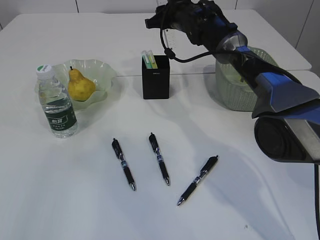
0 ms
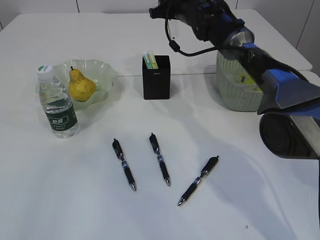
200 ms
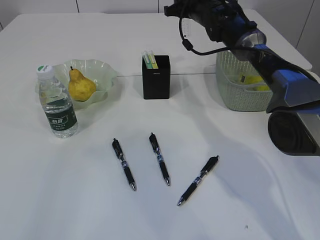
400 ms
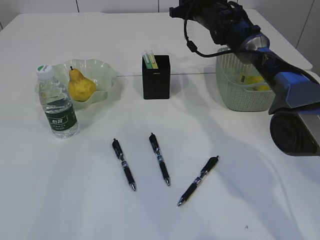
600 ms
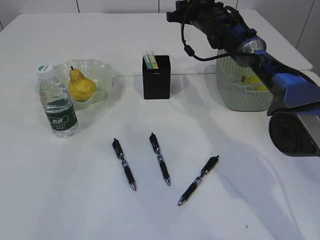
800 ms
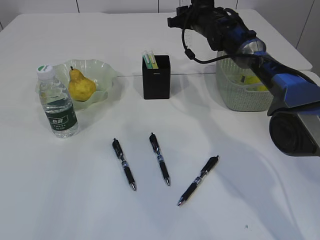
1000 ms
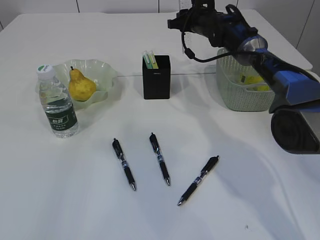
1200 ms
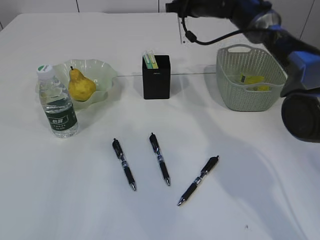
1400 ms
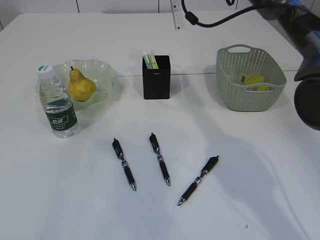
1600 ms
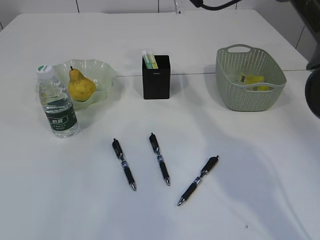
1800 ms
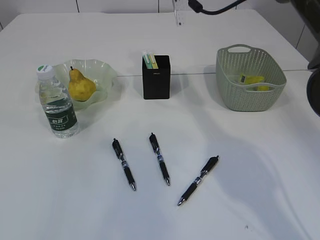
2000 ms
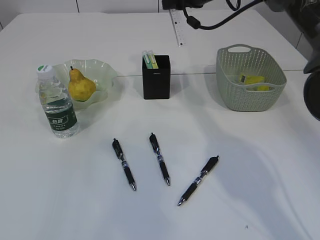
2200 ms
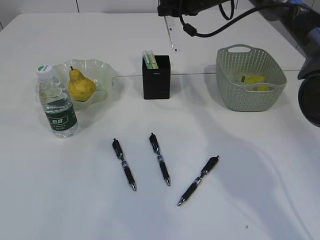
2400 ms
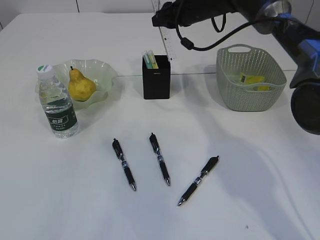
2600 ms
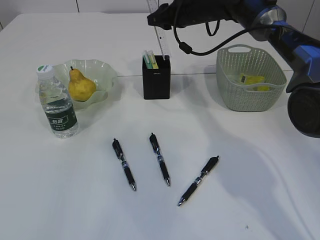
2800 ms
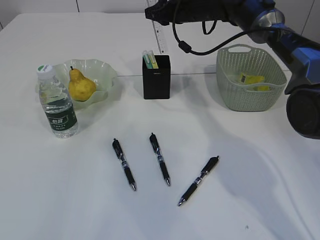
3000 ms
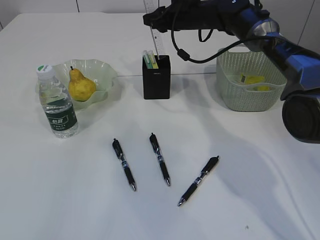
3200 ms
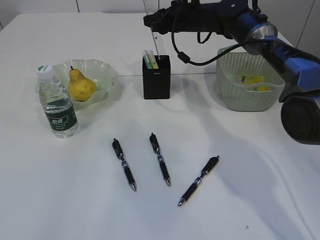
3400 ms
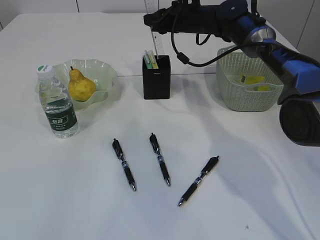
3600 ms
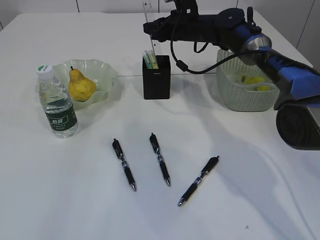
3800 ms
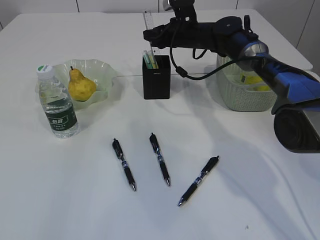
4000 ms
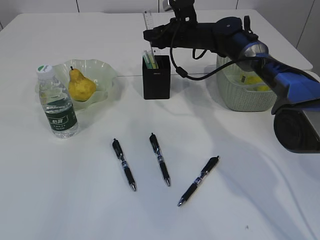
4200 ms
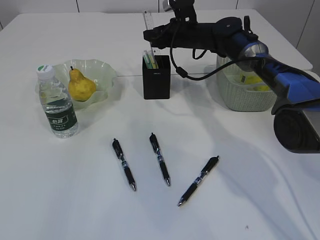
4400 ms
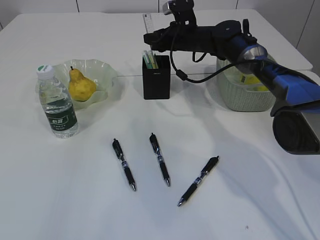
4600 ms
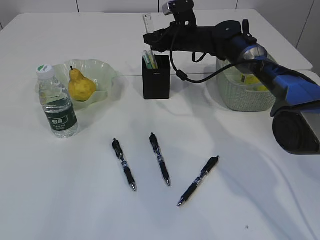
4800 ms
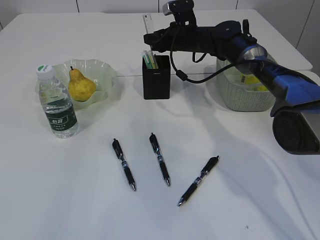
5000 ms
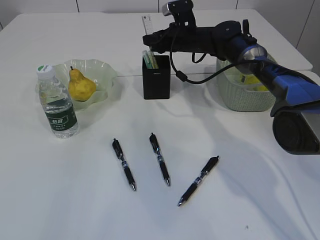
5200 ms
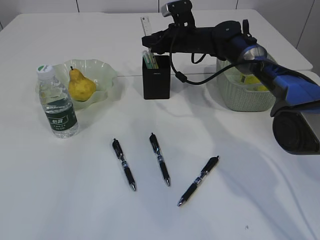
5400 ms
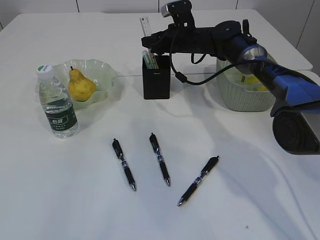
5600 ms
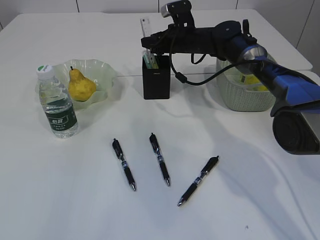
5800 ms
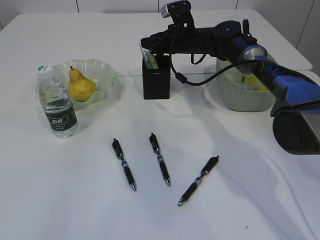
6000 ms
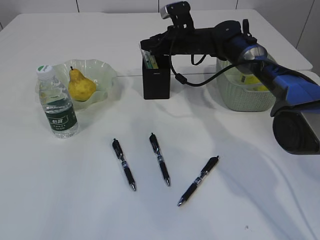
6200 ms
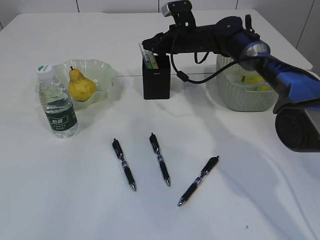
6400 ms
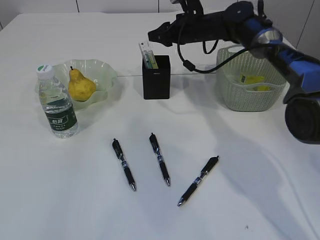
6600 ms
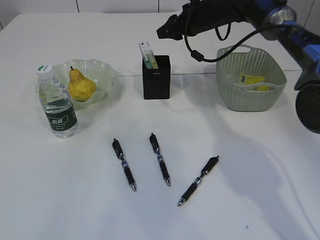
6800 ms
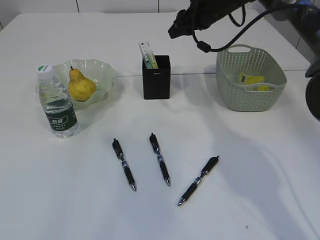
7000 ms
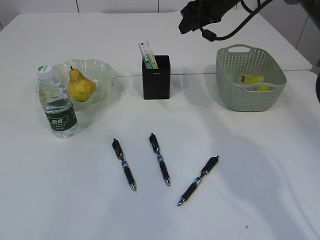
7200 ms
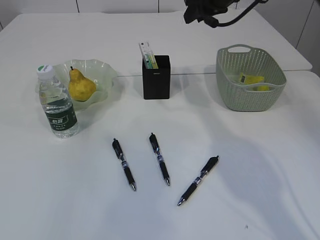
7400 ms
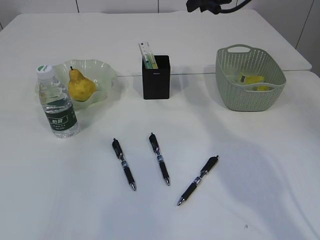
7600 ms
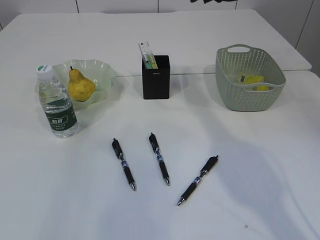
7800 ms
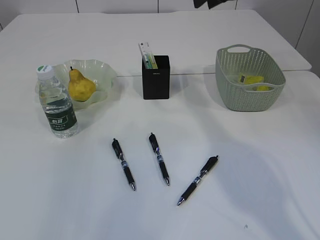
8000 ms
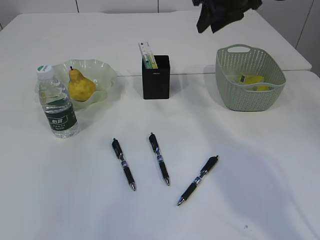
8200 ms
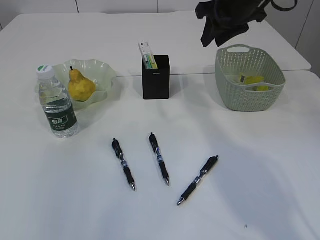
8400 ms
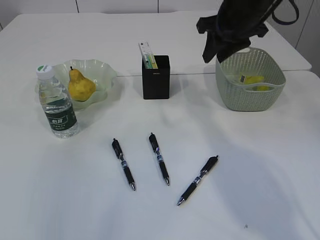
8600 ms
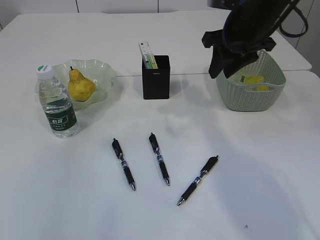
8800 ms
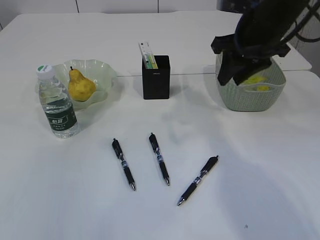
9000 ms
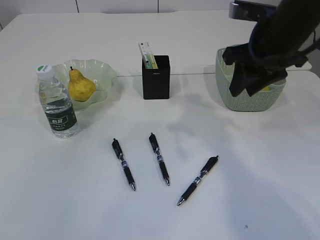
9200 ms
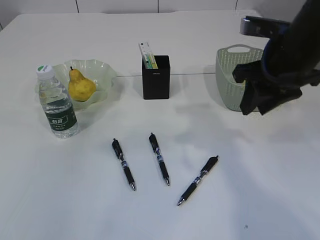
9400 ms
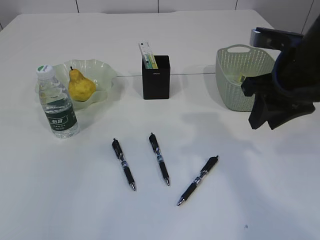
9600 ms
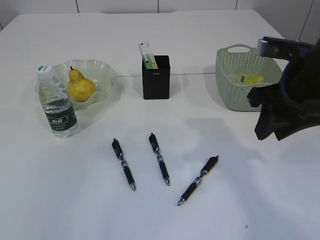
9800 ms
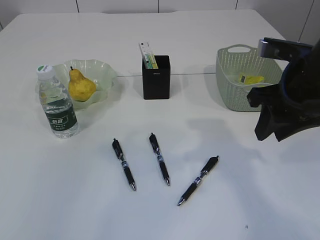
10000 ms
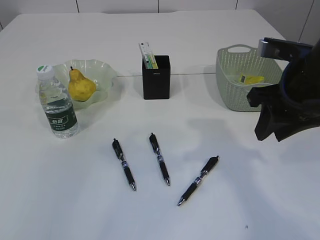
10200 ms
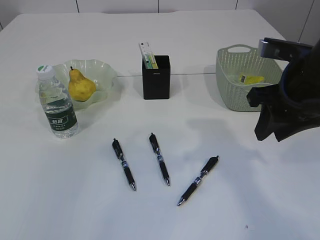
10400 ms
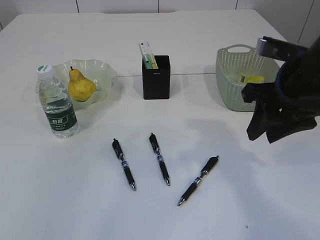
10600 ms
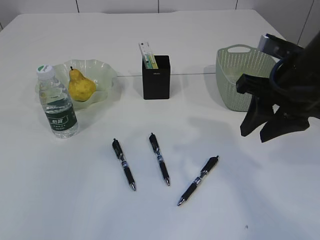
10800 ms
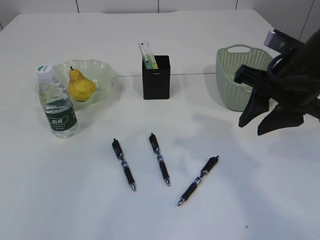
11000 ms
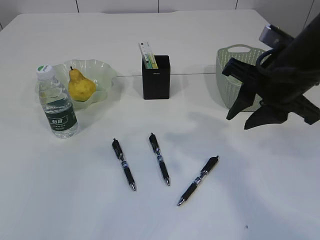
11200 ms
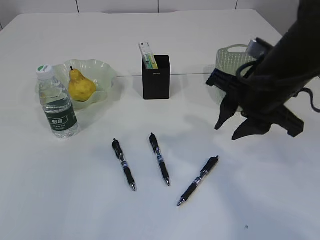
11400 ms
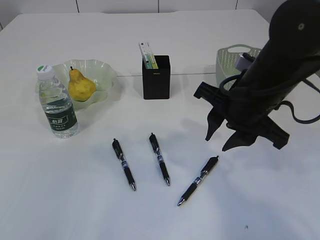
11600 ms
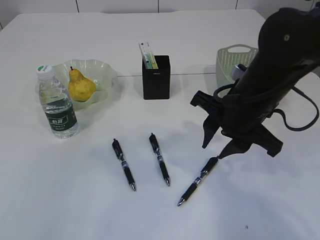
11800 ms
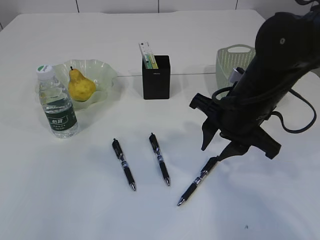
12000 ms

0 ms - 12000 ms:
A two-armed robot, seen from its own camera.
Step, 0 ms - 7000 ms: Place the ruler into the pen holder.
0 ms - 1600 ms: The right gripper travels upward by roughly 10 cm.
1600 ms - 3000 ms: The right gripper moves downward, roughly 5 cm.
3000 ms - 4400 ms: The right gripper heads downward, covering roughly 5 cm.
4400 ms - 6000 ms: Neither gripper changes place.
6000 ms - 7600 ms: The right gripper heads upward and backward, covering roughly 15 cm.
7600 ms - 9000 ms: The right gripper is displaced backward by some 10 cm.
9000 ms - 10400 ms: The right gripper heads backward, covering approximately 10 cm.
10400 ms - 12000 ms: The right gripper is displaced to the left and downward by approximately 10 cm.

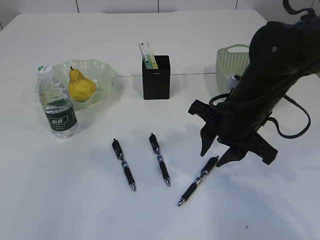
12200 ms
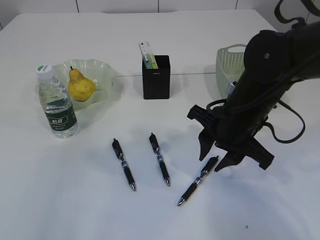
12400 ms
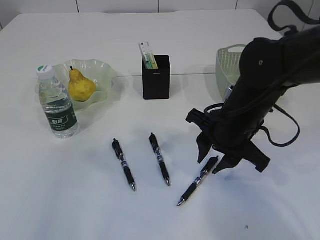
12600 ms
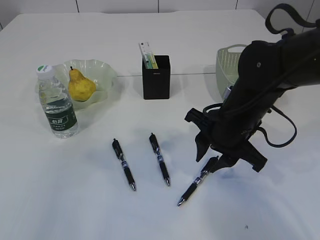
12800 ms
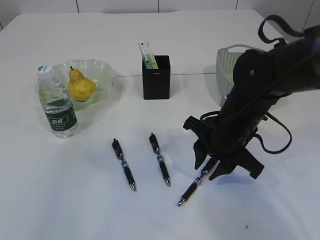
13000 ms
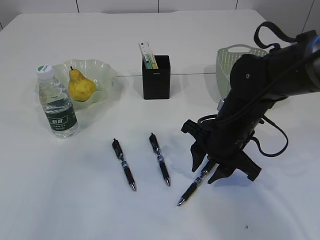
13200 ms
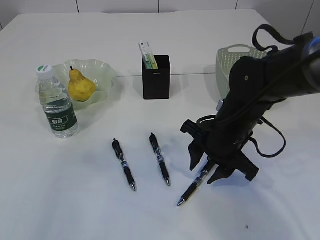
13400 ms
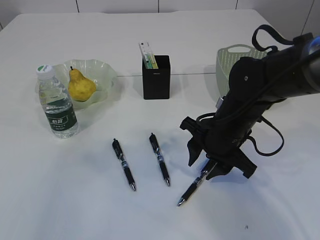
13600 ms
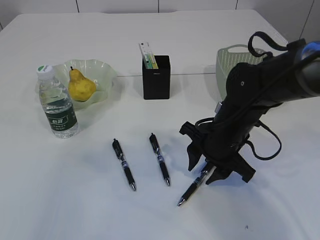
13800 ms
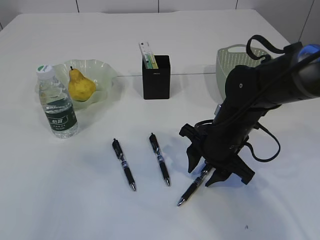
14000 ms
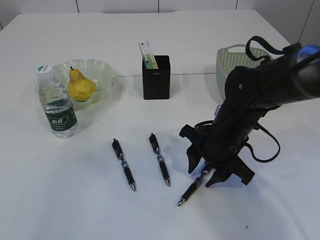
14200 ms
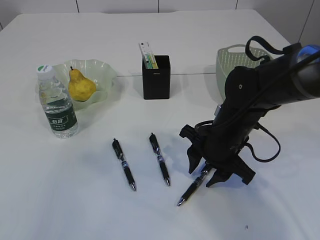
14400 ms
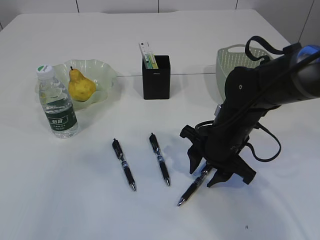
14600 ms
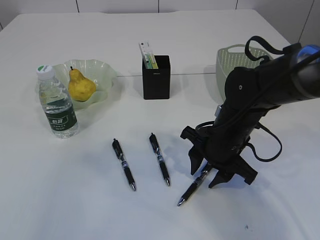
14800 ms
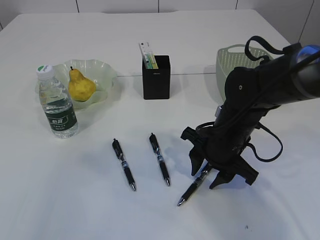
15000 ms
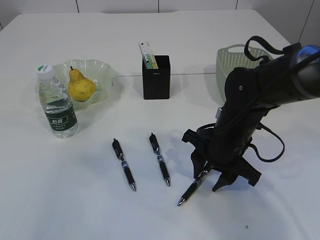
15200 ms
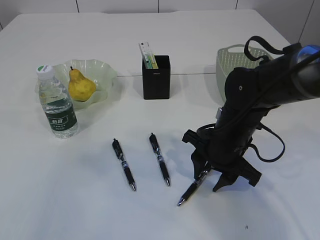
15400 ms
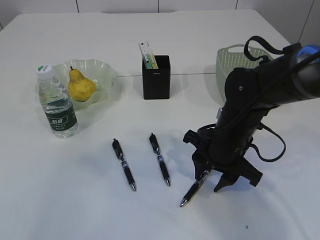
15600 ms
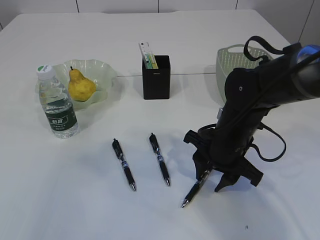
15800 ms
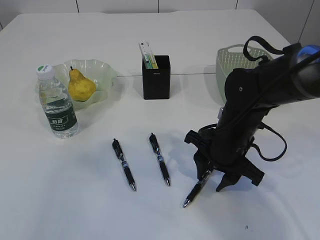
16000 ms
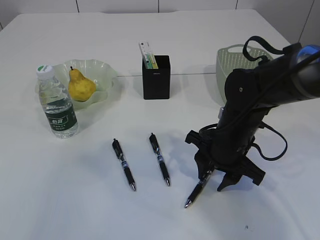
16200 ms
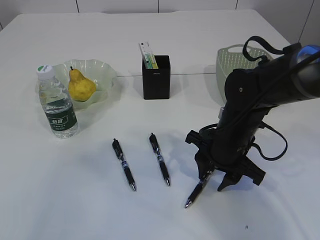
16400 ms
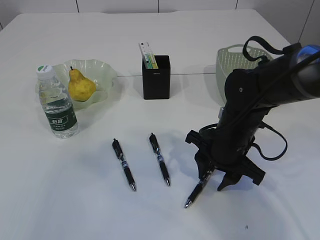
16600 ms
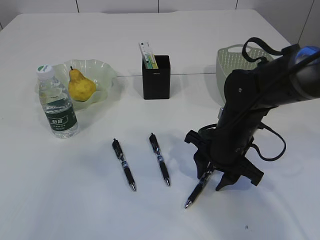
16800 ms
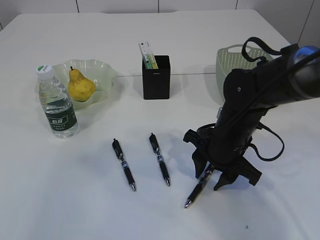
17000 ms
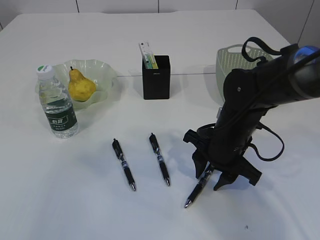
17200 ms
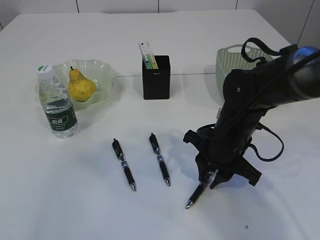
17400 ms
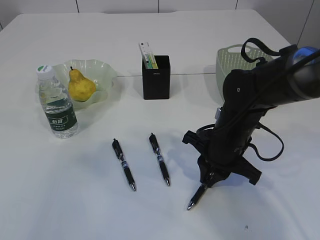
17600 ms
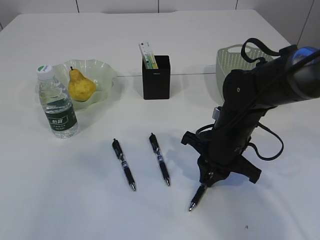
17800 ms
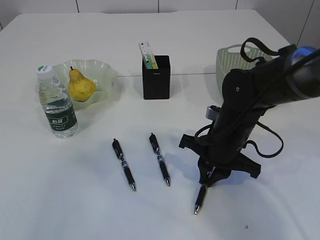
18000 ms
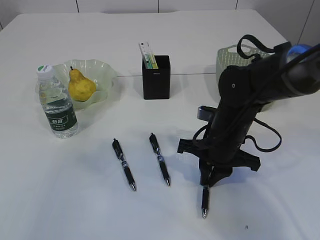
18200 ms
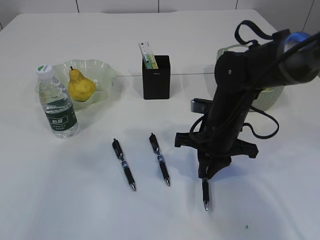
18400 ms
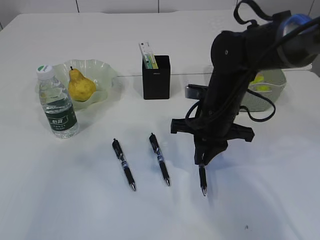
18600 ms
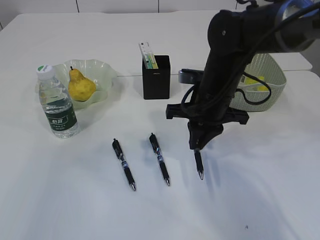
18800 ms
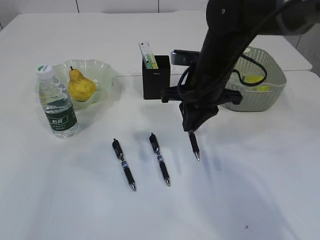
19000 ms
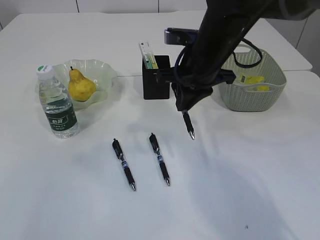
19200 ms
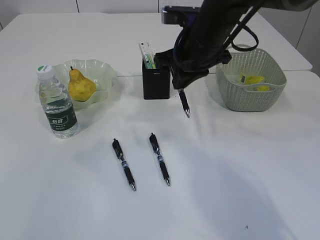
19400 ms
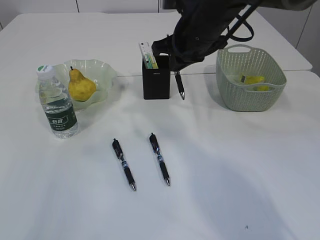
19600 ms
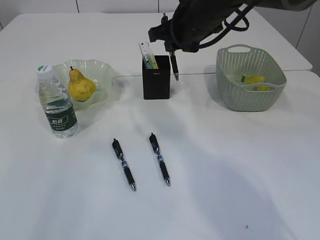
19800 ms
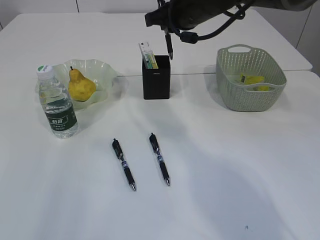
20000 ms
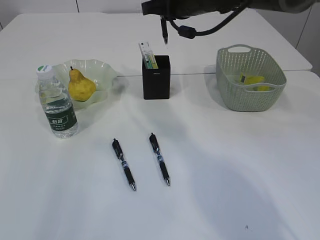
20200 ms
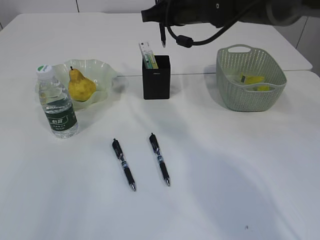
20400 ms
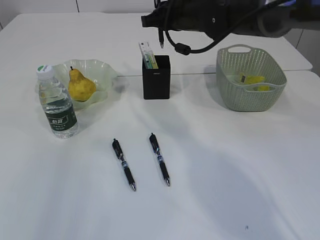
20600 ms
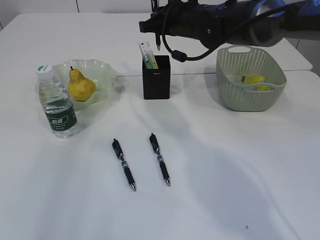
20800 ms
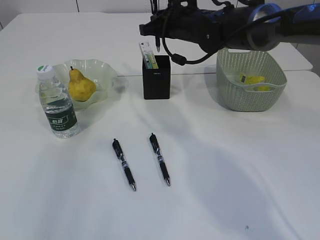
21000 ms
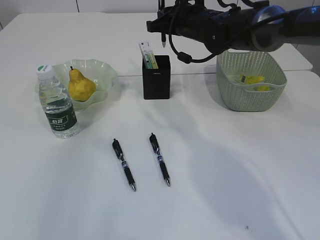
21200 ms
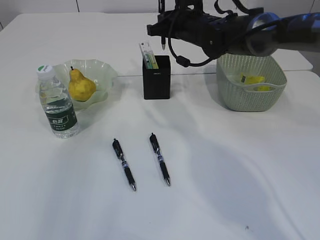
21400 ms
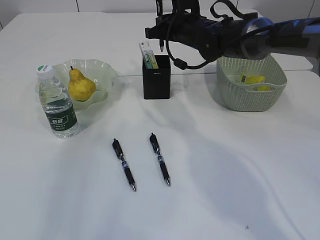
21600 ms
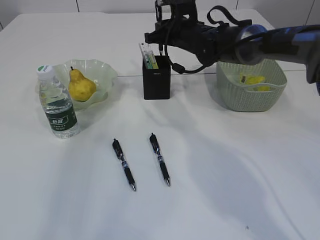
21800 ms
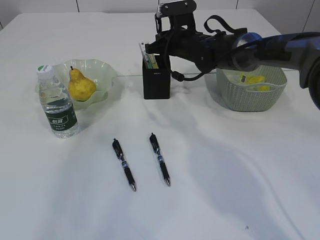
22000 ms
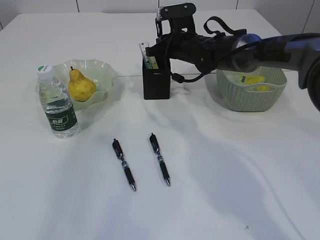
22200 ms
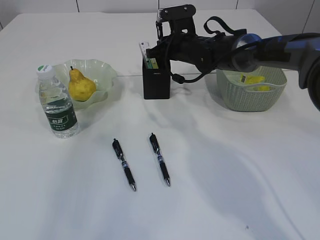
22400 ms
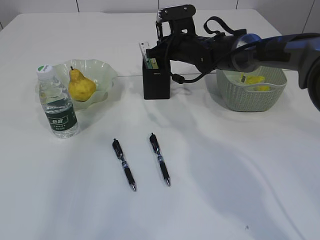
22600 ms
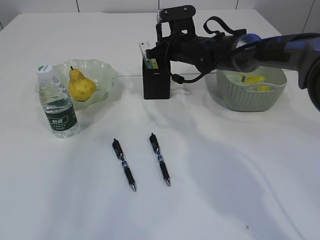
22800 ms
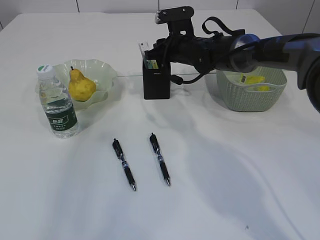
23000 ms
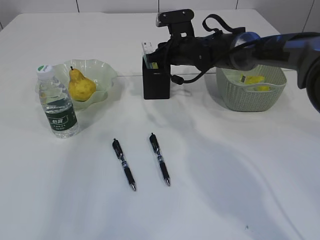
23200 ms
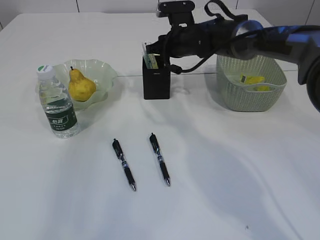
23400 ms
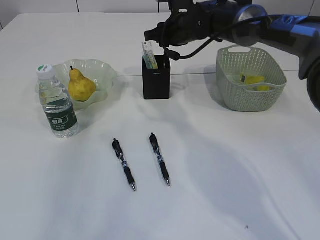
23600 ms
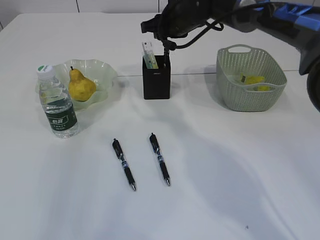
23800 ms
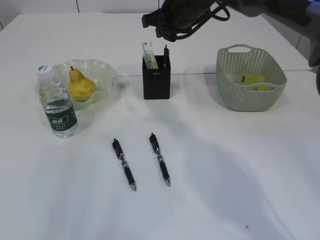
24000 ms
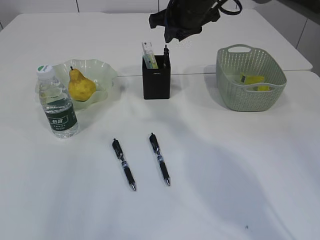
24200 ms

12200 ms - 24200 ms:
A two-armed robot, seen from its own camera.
Step, 12200 ms - 18800 ms: Pick up the pen with right arm.
Step, 19000 ms - 24200 ms: Place the pen into the pen holder.
12200 ms - 13800 ms: The right gripper heads downward, covering some 5 cm.
13800 ms - 15200 ms: Both grippers stay put.
15200 ms - 16600 ms: Both grippers stay put.
16600 ms - 18200 ms: The right gripper closes.
18200 ms - 19800 ms: The right gripper shifts about 20 cm upward and forward.
19800 ms - 21200 ms: The right gripper goes about 5 cm forward.
21200 ms - 22600 ms: The right gripper shifts approximately 5 cm downward.
22600 ms - 24200 ms: The right gripper heads upward, covering some 10 cm, and opens up.
